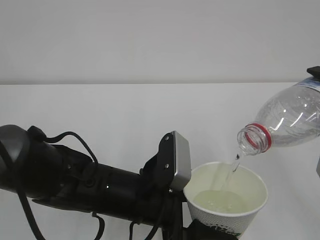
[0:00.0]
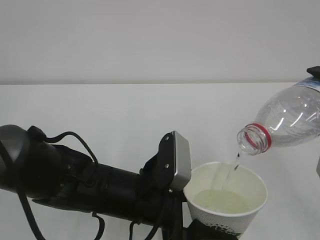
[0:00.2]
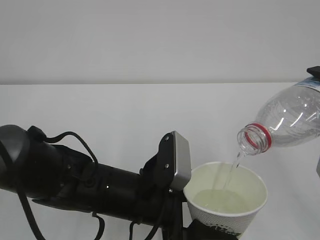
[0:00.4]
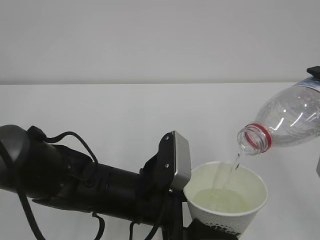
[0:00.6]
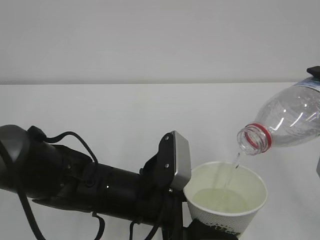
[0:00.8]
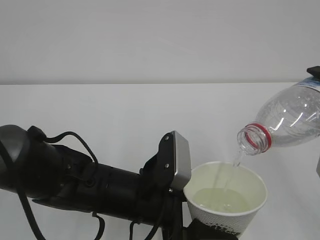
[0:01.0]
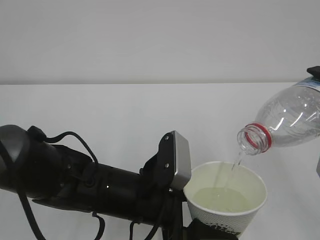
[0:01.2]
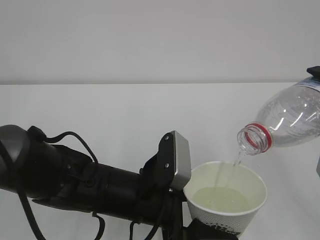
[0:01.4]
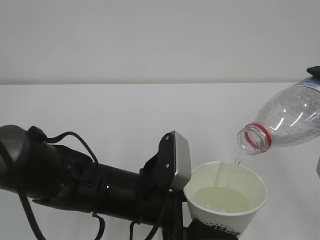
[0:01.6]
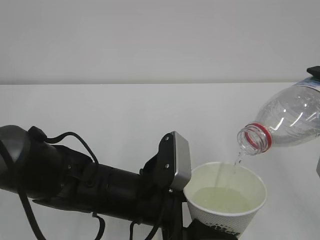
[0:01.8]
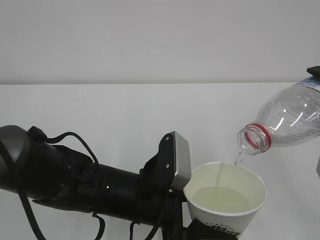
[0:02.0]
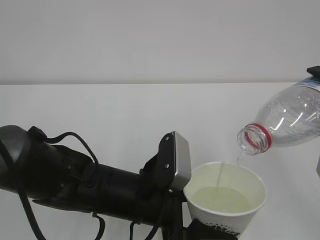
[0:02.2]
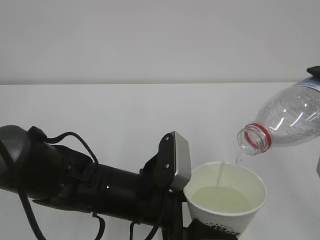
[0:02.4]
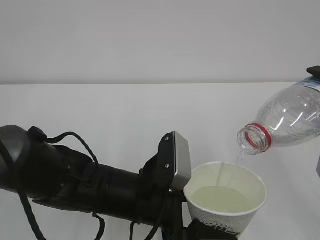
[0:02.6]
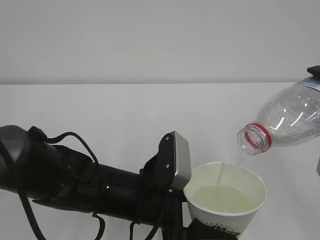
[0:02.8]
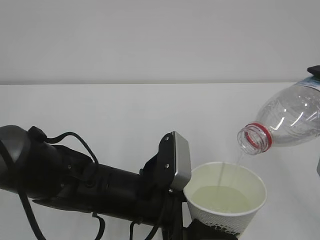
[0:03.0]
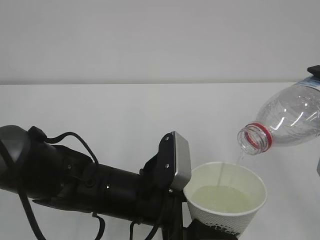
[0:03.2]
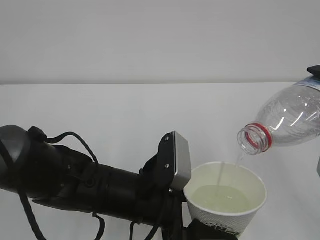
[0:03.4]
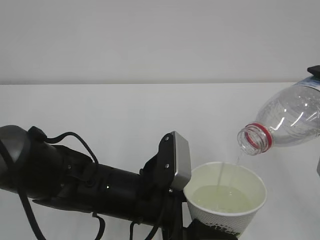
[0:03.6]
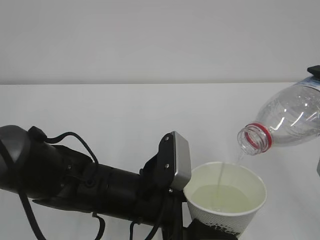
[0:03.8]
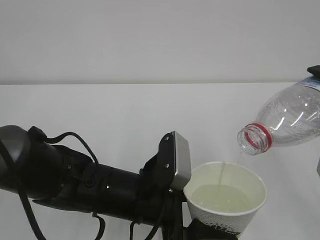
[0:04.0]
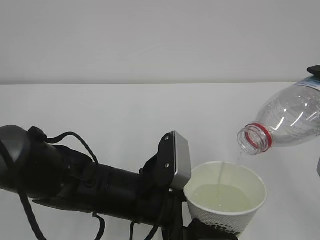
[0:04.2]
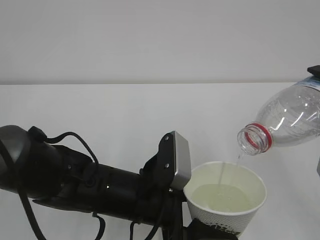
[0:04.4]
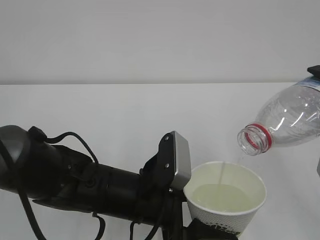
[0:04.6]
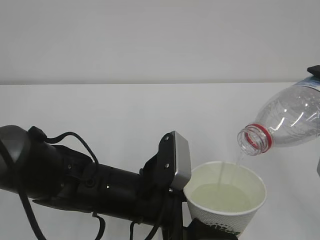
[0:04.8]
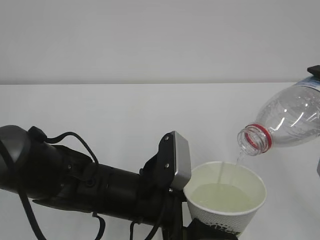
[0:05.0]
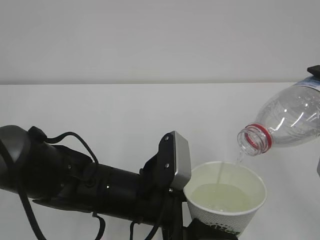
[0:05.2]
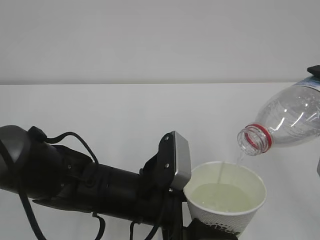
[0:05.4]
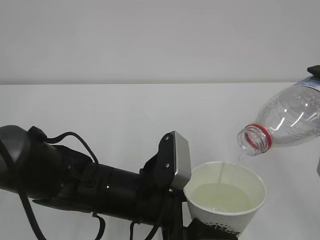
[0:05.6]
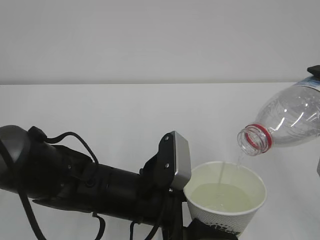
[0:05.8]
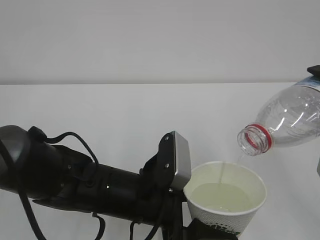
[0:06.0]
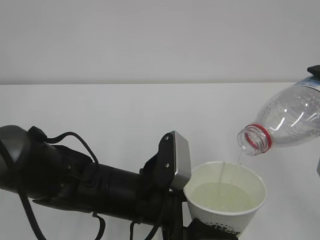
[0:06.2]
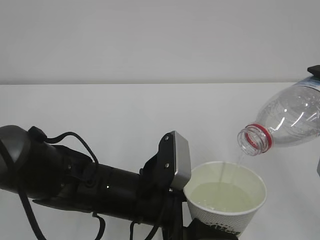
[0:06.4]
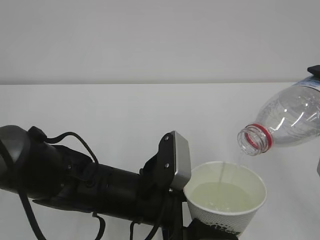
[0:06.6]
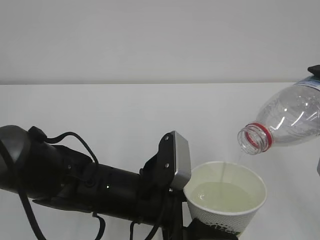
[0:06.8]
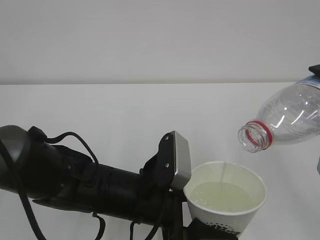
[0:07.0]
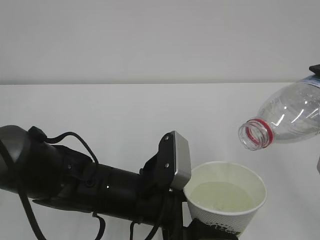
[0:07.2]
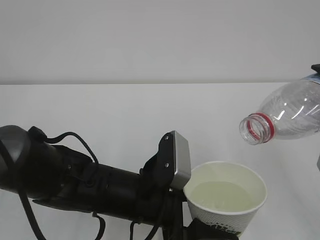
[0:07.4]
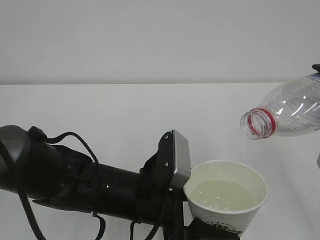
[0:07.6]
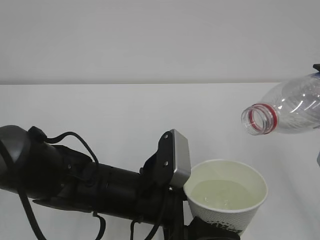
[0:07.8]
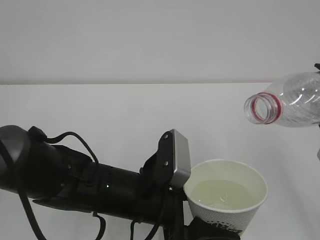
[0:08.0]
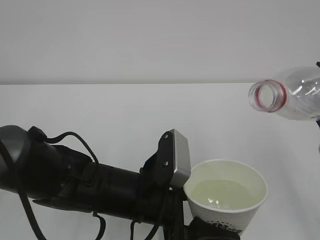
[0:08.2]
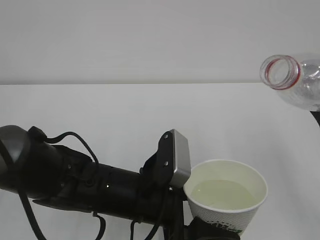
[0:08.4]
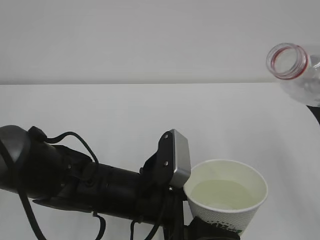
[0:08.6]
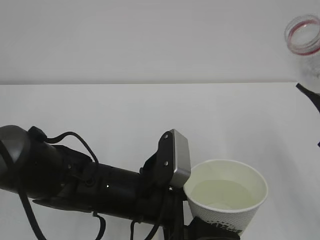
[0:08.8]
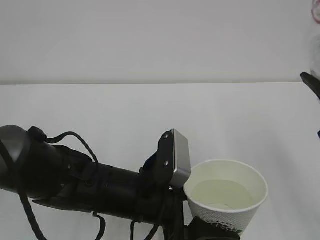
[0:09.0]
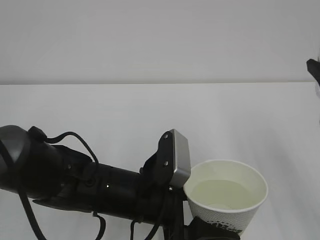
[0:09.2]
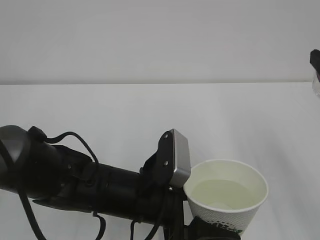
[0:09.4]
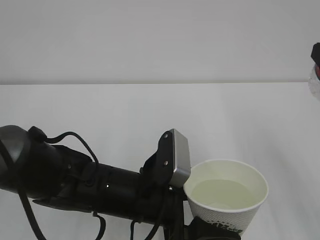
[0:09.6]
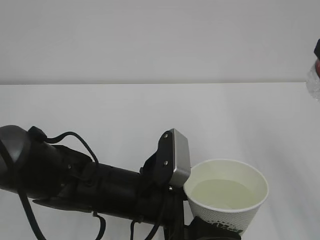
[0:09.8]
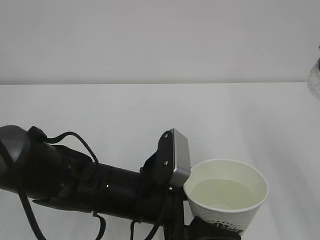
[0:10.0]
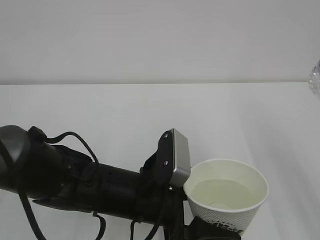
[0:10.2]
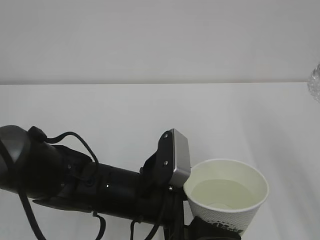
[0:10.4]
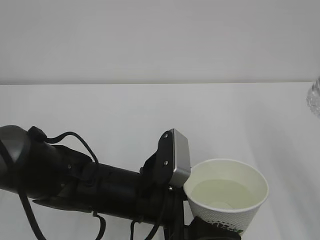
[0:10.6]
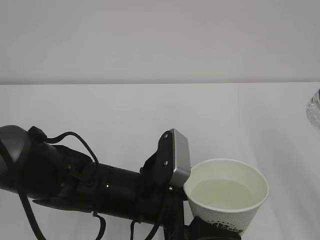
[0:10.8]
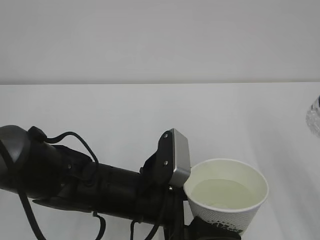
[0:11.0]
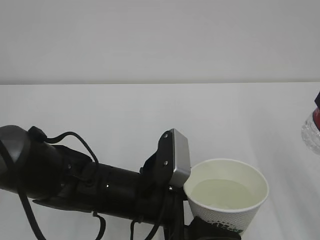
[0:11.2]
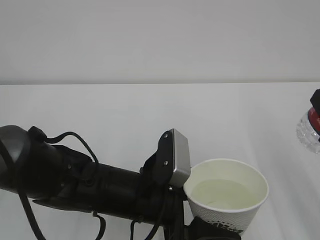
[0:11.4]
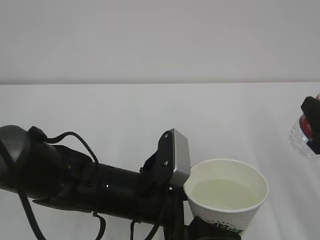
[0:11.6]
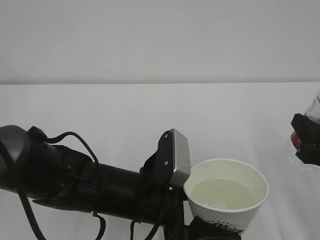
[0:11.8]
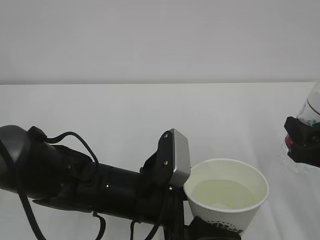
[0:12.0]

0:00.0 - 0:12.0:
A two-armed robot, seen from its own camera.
0:00.0 - 0:06.0: Neither gripper changes place.
0:06.0 - 0:07.6: There are only small adjustments of the grippers.
0:10.4 - 0:12.0: The right gripper shifts roughly 10 cm downward.

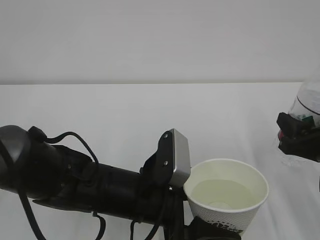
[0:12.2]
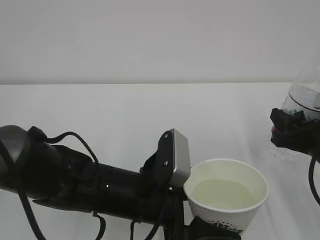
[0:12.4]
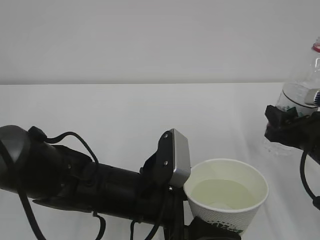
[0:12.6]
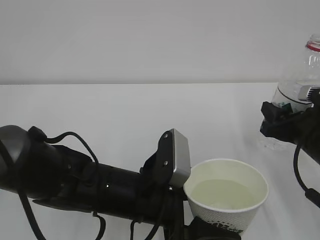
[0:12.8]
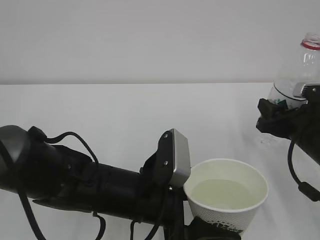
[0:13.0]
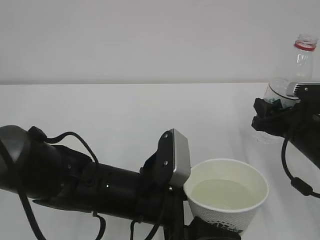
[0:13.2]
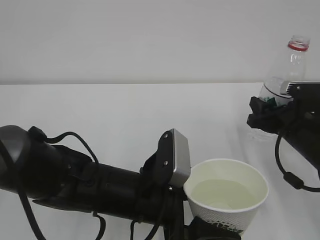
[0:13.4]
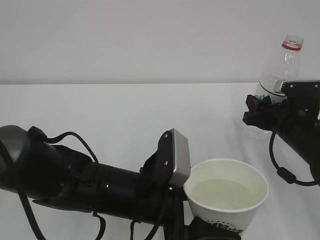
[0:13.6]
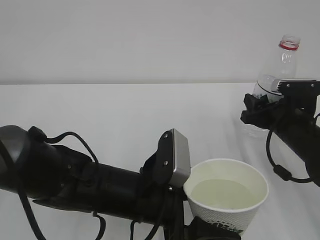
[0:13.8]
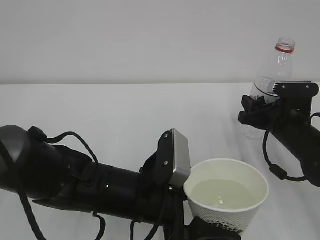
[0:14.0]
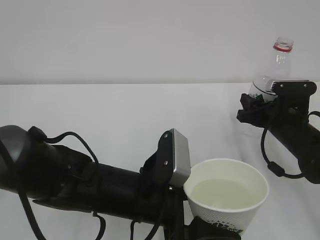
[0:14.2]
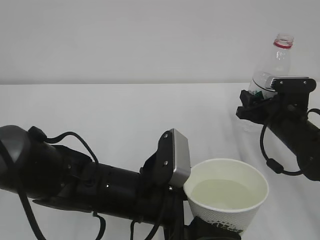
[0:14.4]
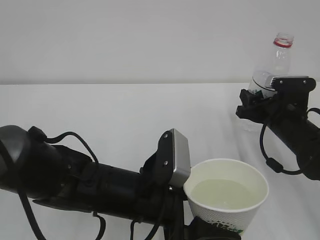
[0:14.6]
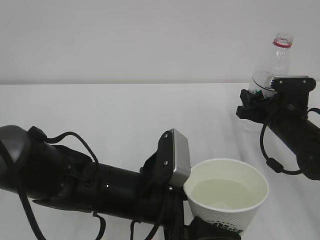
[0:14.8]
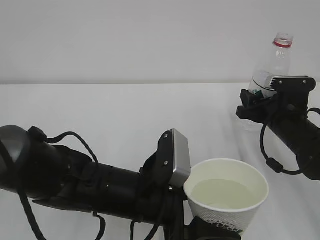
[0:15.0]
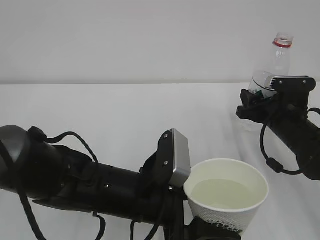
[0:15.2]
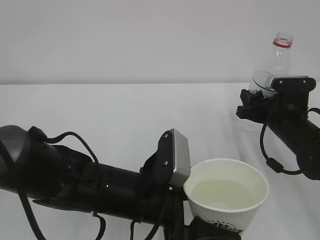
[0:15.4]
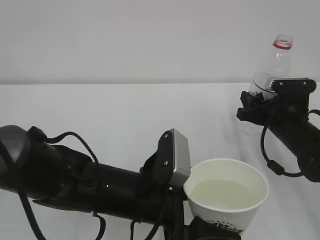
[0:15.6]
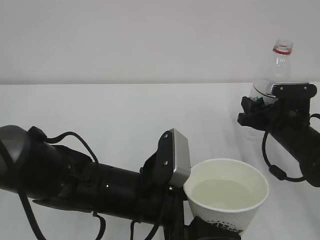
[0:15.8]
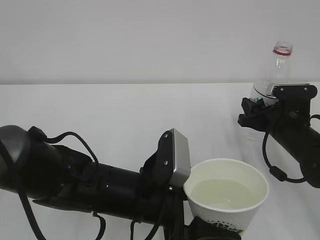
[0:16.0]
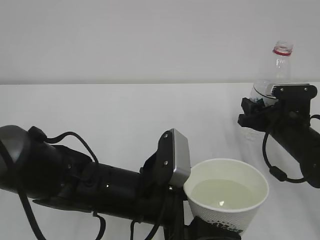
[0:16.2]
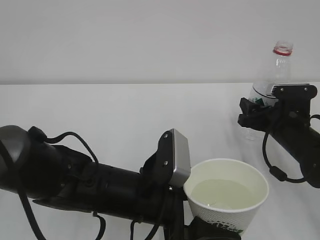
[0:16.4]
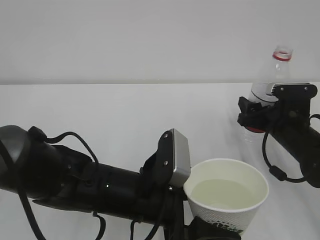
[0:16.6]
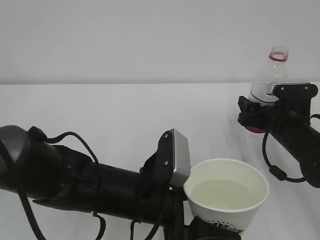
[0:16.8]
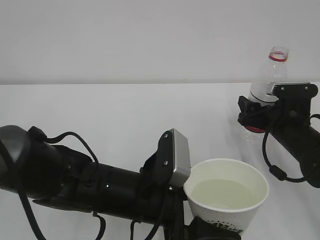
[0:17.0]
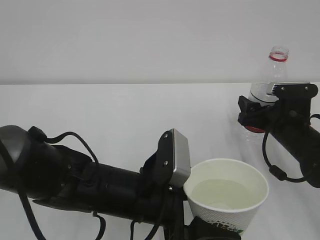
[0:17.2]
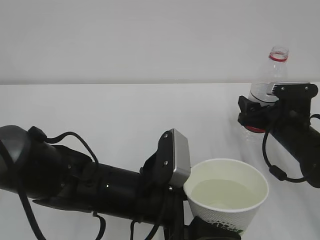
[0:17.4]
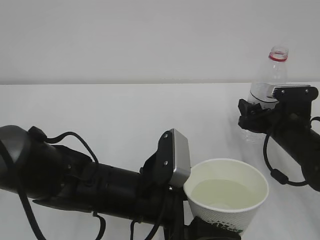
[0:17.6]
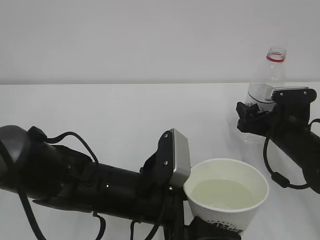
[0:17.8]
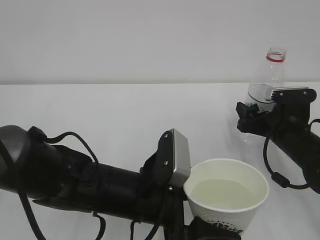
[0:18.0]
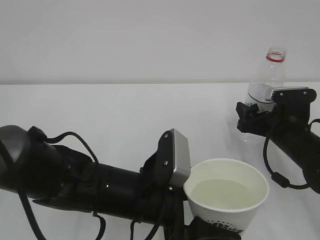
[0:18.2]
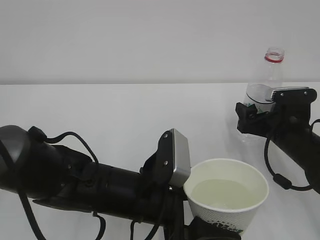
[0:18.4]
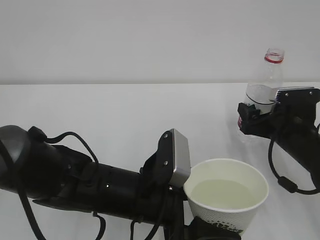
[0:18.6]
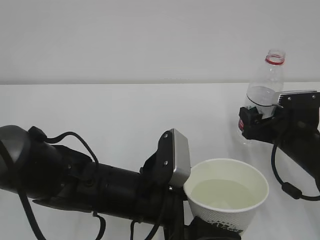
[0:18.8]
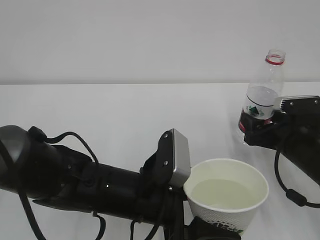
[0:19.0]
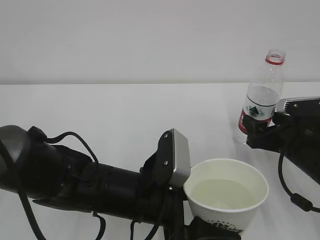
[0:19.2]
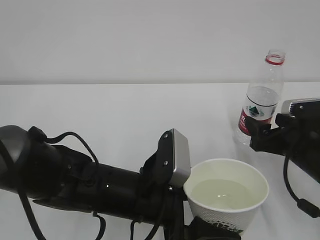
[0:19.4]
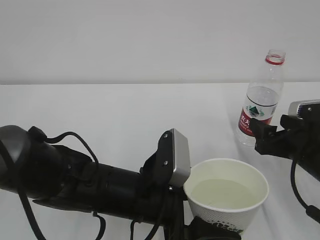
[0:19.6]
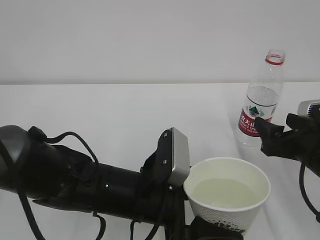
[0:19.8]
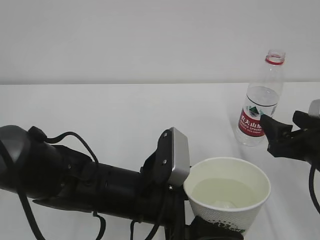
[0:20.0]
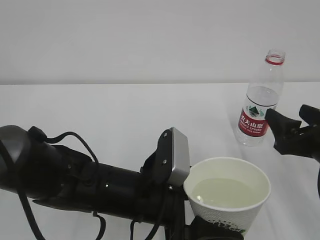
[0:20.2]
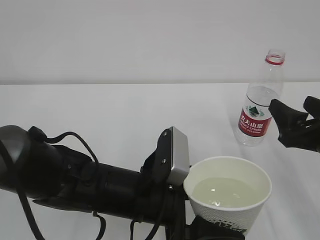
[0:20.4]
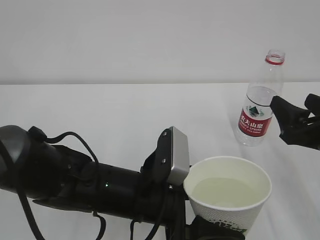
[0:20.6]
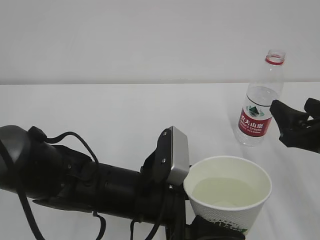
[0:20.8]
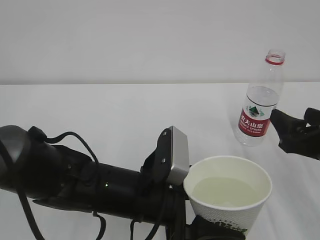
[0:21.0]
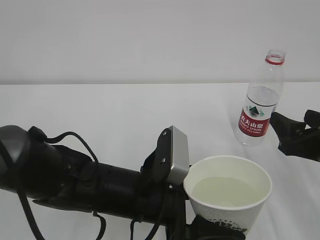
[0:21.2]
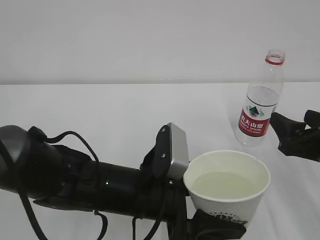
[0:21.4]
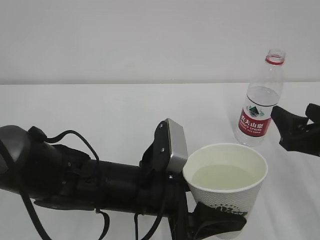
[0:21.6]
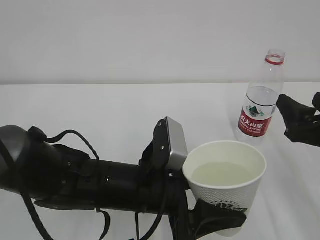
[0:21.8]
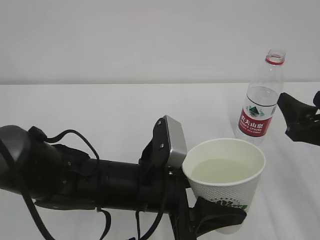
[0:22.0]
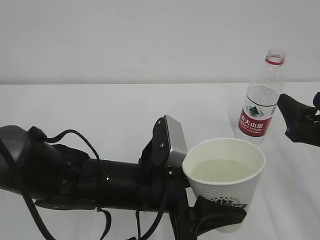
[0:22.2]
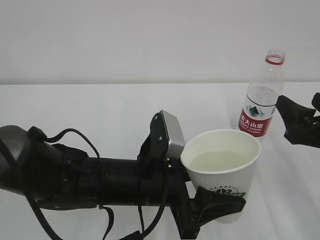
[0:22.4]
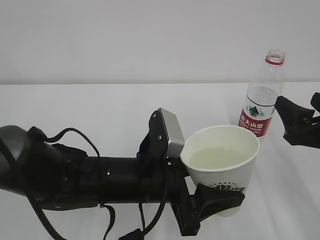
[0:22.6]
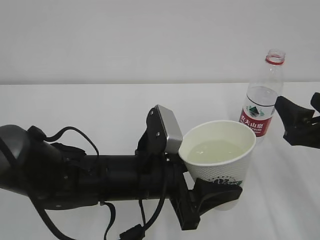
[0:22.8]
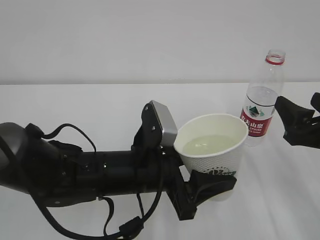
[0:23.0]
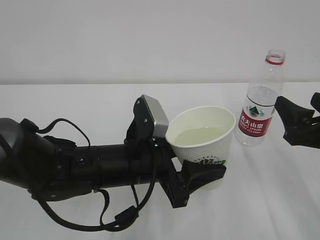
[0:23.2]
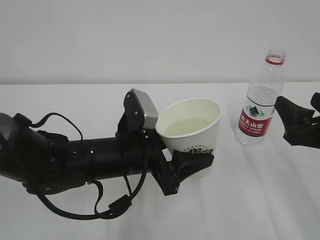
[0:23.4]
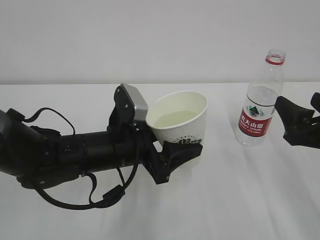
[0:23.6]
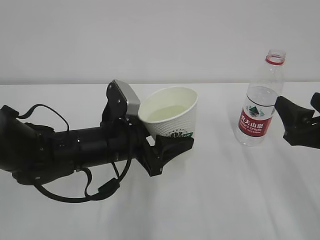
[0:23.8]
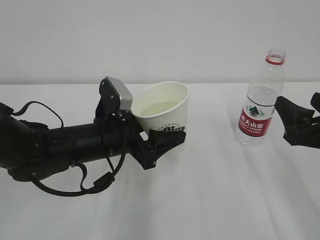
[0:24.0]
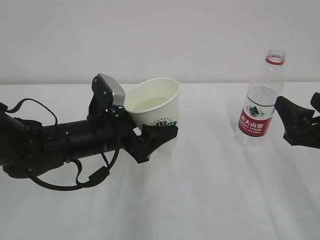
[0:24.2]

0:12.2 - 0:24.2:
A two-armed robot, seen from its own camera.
0:12.2 - 0:13.8: The right gripper is displaced forward by roughly 10 cm.
0:13.8 - 0:15.2: The grippers make only small movements.
0:15.2 - 0:16.6: The right gripper opens.
0:16.6 - 0:18.2: Neither gripper changes place.
0:18.2 - 0:19.8: The right gripper goes about 10 cm backward.
0:19.8 - 0:21.2: The grippers stay close to where they were, moving slightly.
0:21.2 - 0:22.6: The grippers stay close to where they were, moving slightly.
0:22.6 - 0:24.2: The left gripper moves forward and to the left, some 10 cm.
